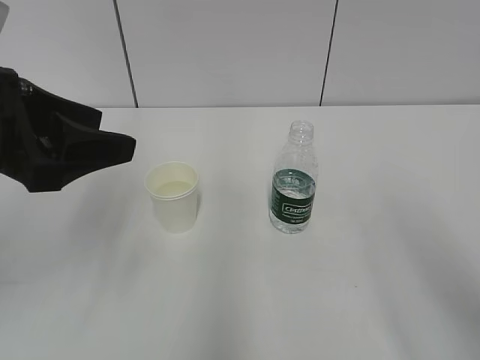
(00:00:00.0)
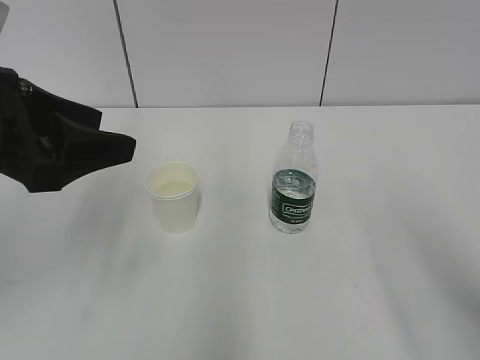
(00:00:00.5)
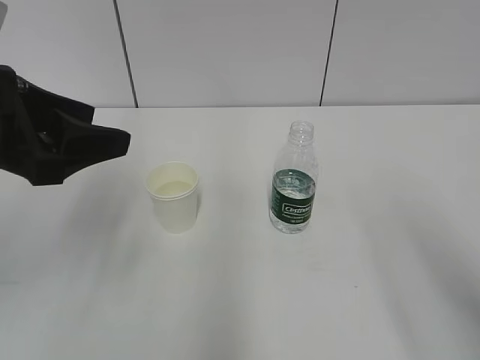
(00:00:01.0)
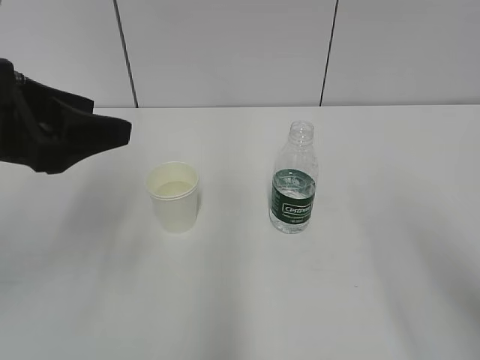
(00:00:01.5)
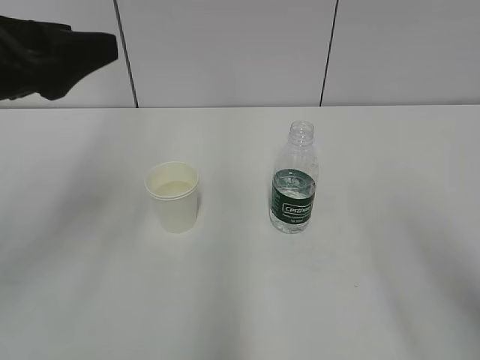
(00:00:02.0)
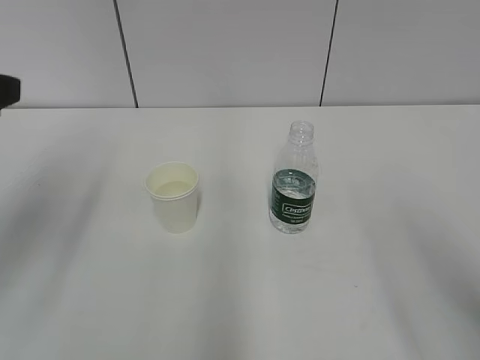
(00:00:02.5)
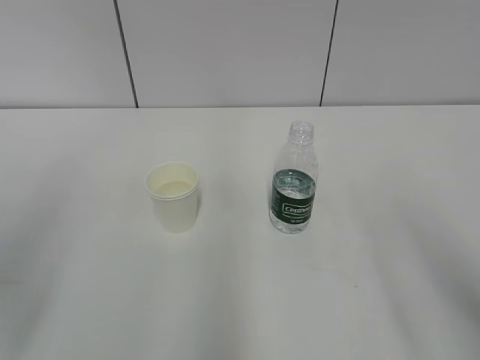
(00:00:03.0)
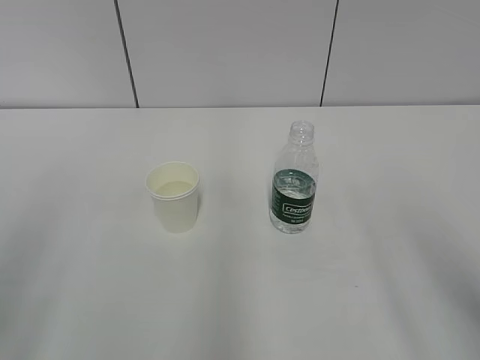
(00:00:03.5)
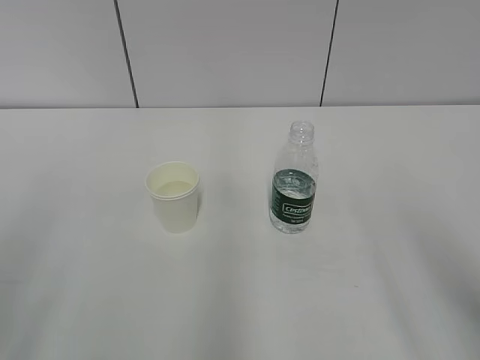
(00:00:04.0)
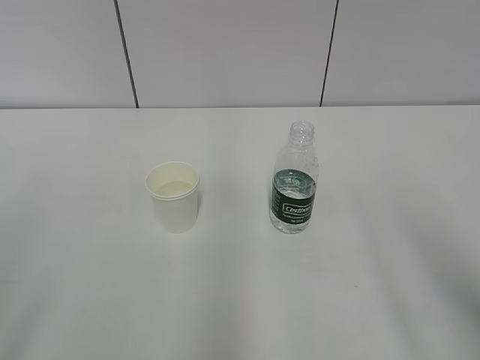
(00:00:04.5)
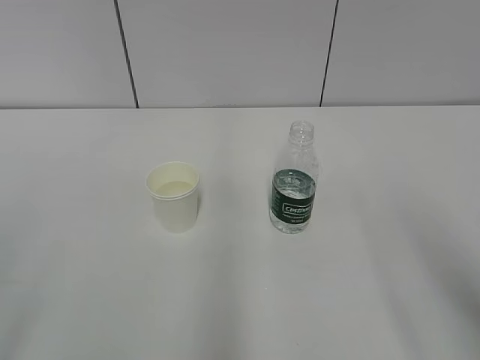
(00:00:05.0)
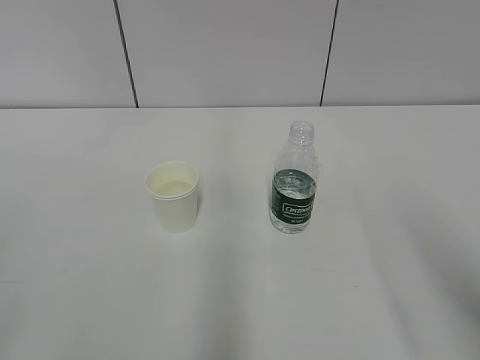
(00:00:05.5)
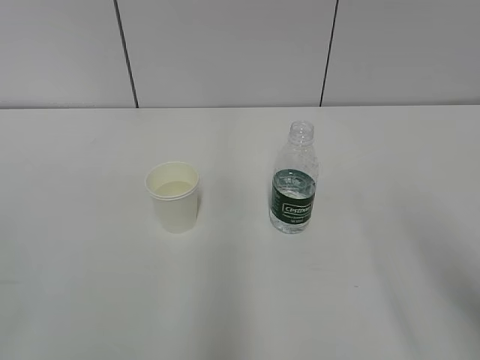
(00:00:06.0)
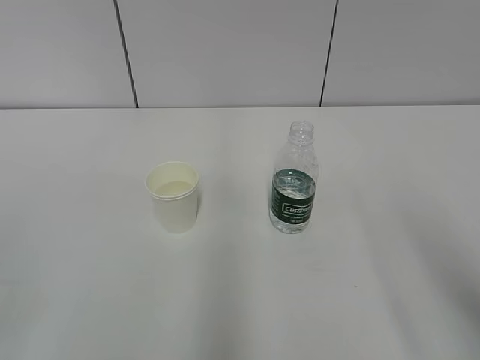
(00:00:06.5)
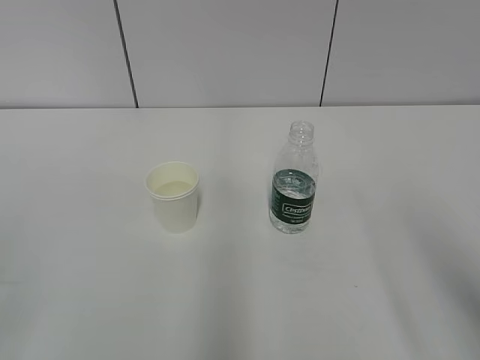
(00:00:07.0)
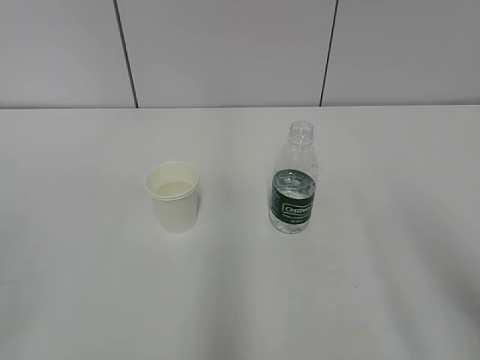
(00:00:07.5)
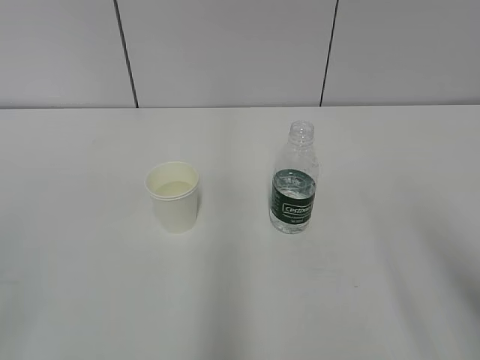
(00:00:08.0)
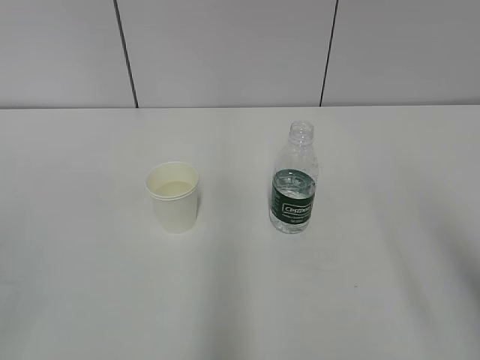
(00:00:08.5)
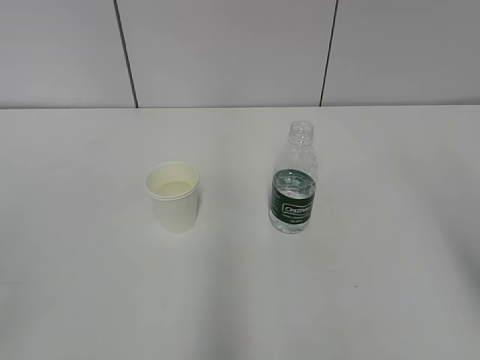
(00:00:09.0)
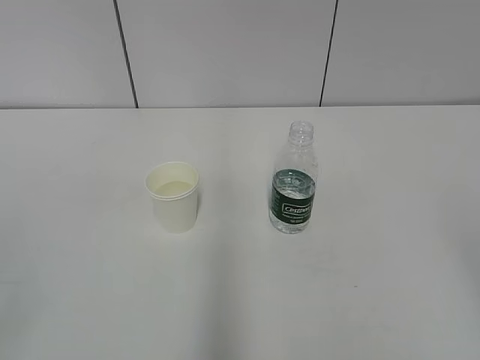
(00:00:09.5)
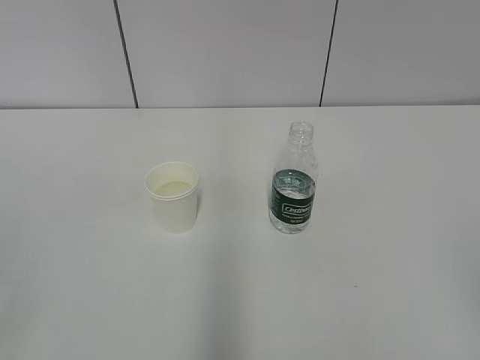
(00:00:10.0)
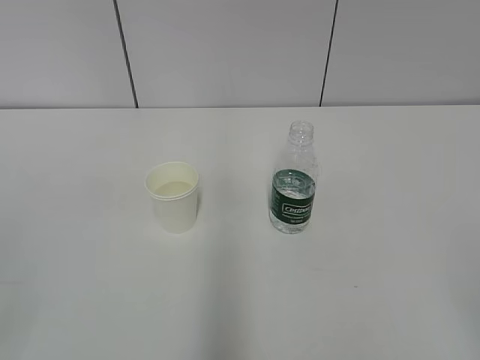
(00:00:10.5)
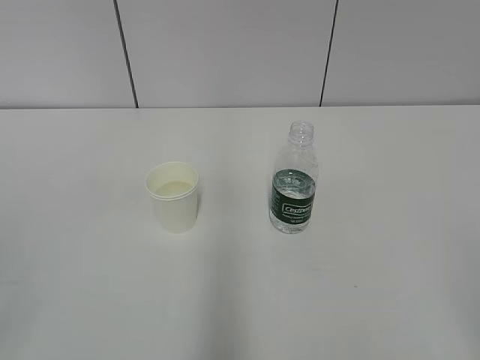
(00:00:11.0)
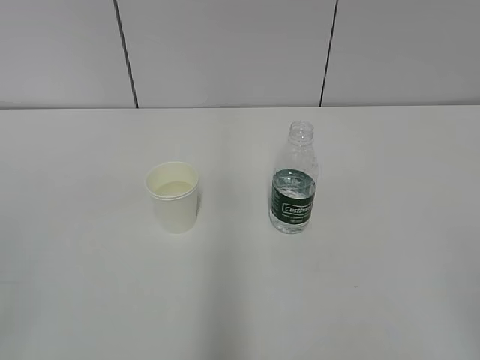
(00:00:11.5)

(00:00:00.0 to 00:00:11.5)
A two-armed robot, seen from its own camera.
00:00:02.0 - 00:00:04.0: The left gripper moves backward and to the left, about 20 cm.
00:00:07.5 - 00:00:09.5: The right gripper shifts approximately 5 cm backward.
